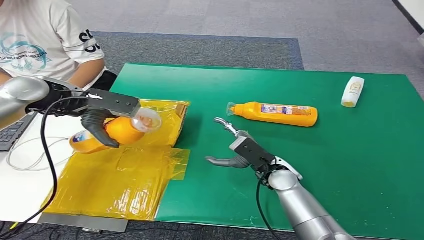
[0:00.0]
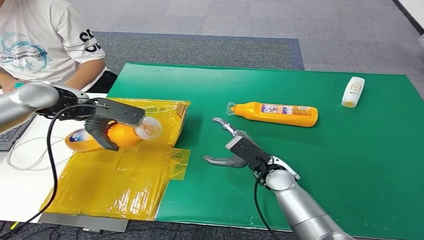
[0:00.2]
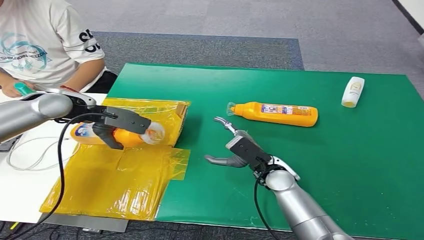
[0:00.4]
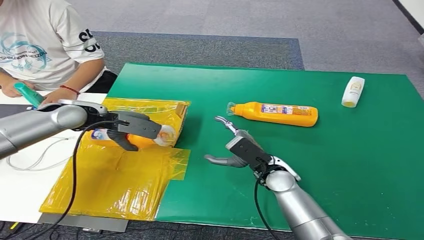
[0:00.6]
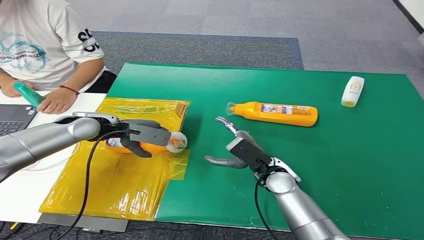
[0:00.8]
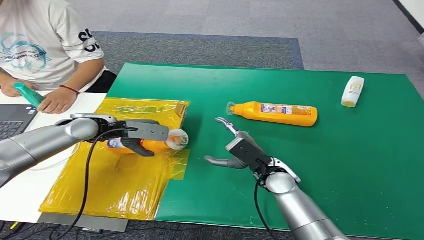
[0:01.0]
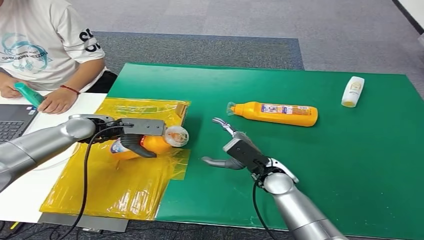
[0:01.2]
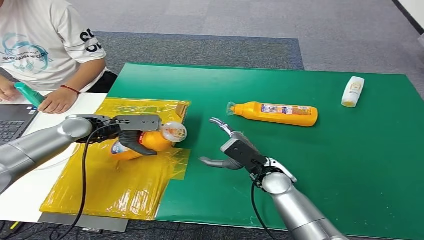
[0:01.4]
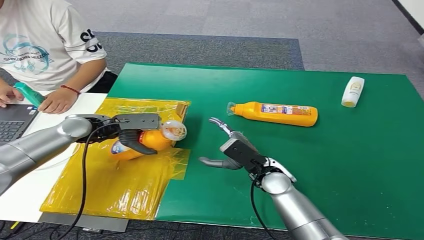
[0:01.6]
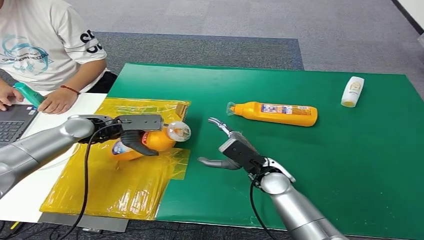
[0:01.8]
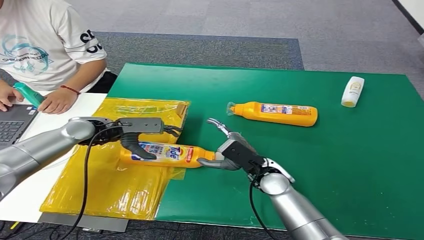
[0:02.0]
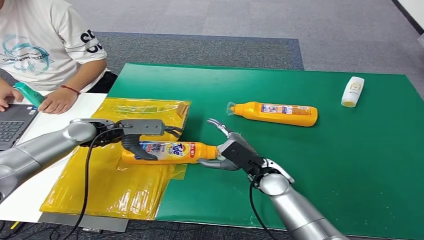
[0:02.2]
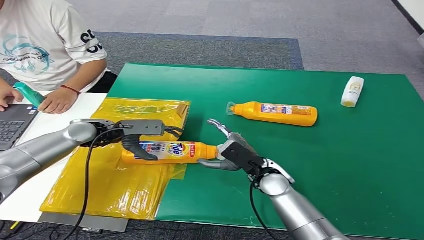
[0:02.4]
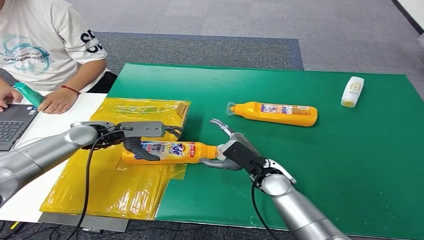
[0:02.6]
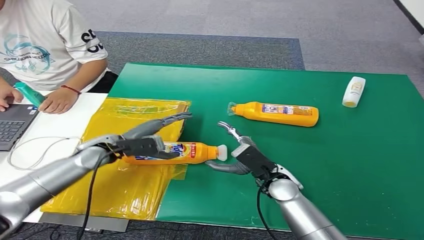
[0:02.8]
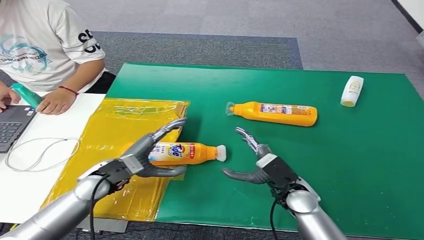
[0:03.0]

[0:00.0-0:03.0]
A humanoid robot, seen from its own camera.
Step, 0:00.0 to 0:03.0: Turn the bottle to the front side.
0:00.0 to 0:01.6: The left hand goes some 15 cm downward.

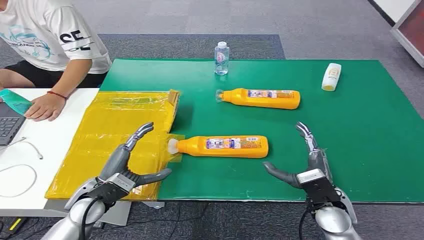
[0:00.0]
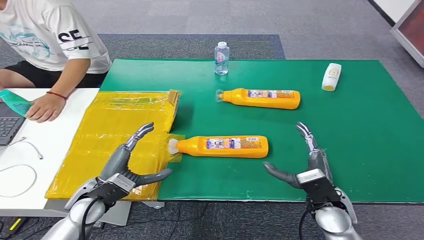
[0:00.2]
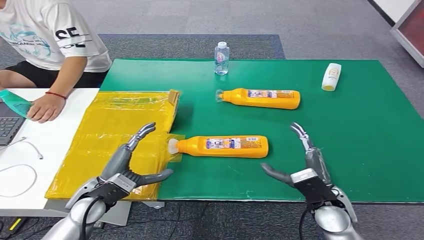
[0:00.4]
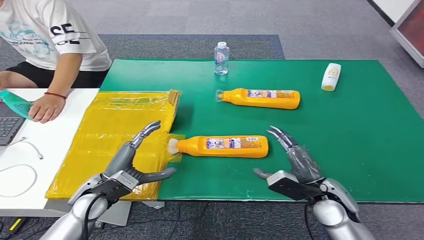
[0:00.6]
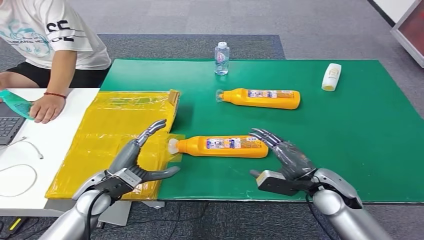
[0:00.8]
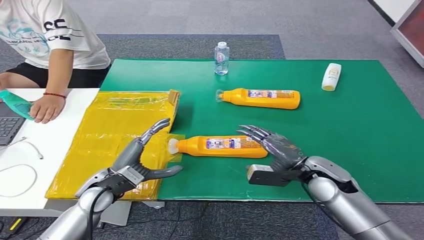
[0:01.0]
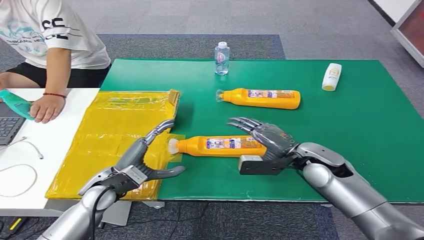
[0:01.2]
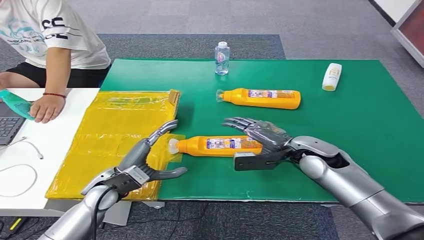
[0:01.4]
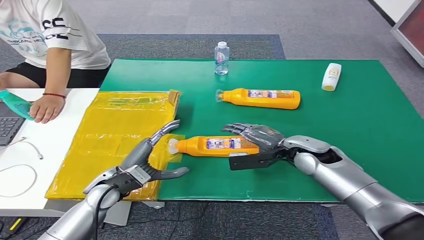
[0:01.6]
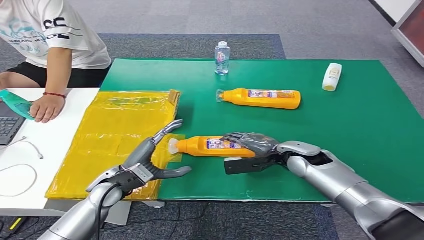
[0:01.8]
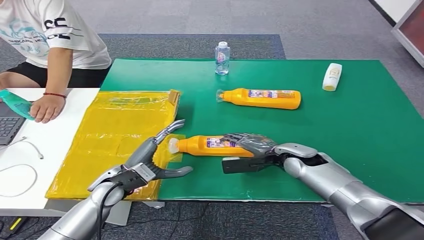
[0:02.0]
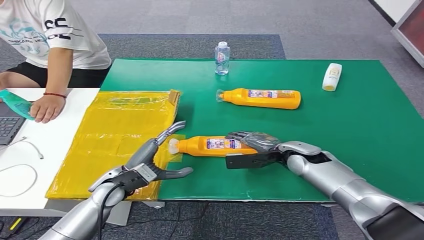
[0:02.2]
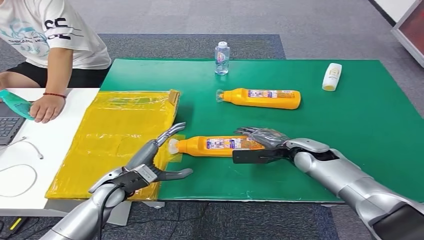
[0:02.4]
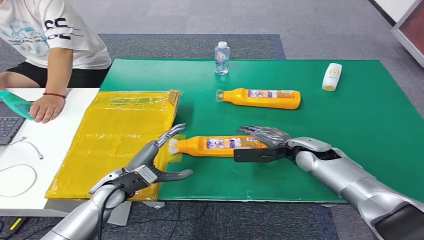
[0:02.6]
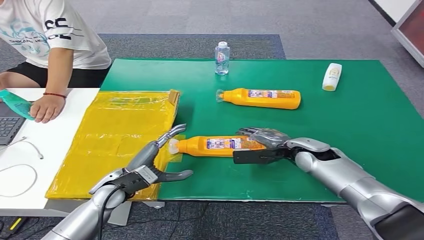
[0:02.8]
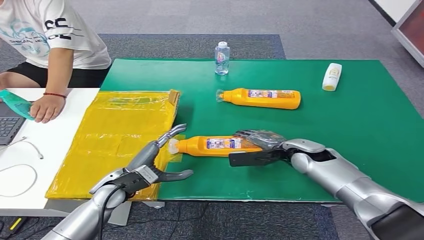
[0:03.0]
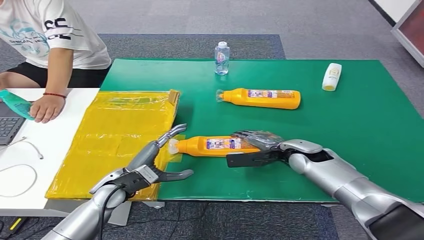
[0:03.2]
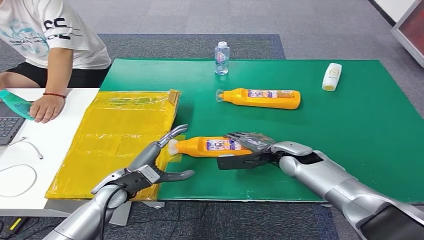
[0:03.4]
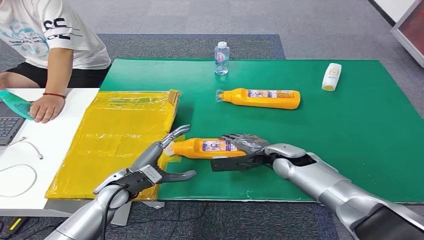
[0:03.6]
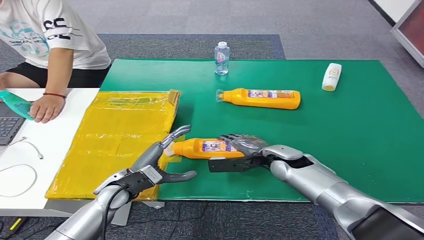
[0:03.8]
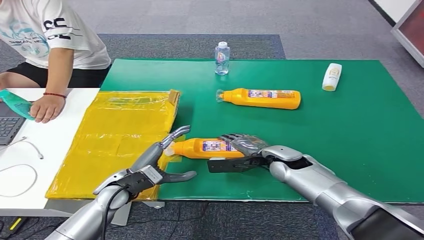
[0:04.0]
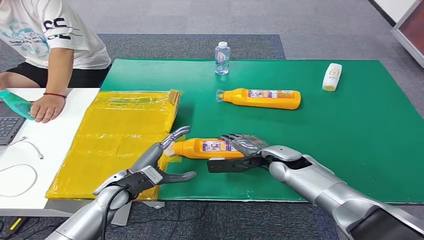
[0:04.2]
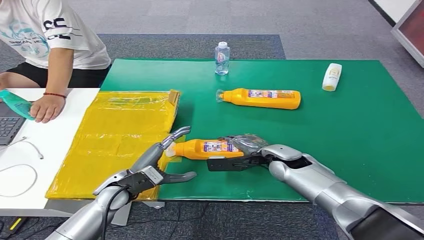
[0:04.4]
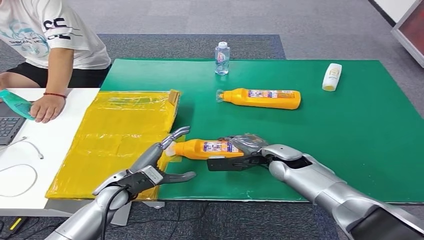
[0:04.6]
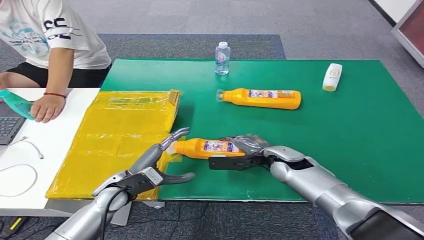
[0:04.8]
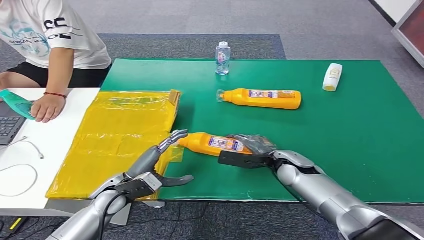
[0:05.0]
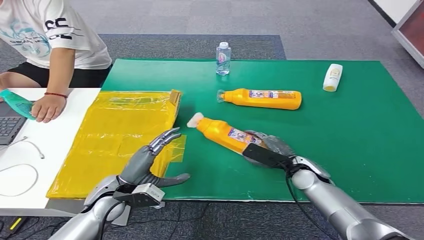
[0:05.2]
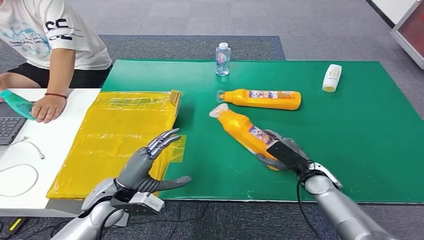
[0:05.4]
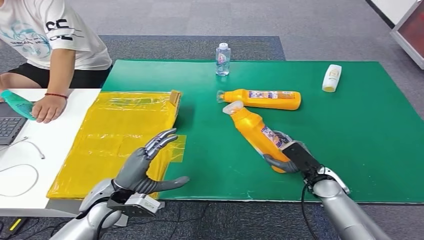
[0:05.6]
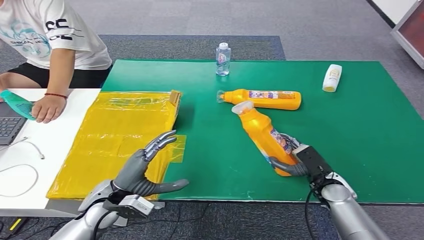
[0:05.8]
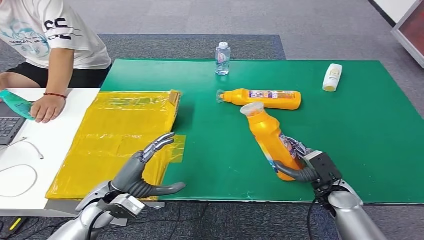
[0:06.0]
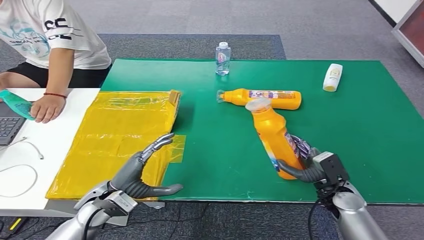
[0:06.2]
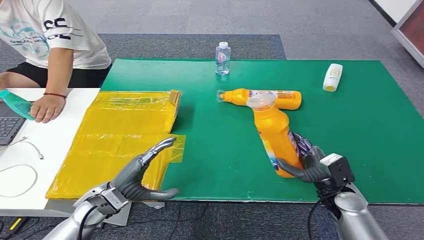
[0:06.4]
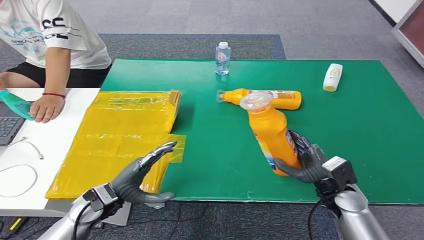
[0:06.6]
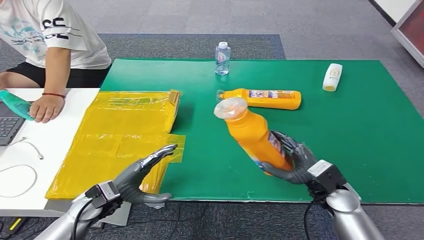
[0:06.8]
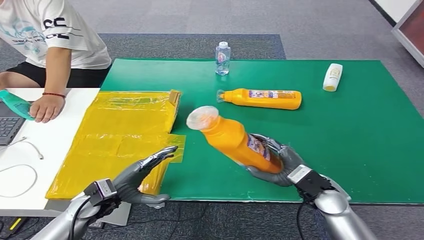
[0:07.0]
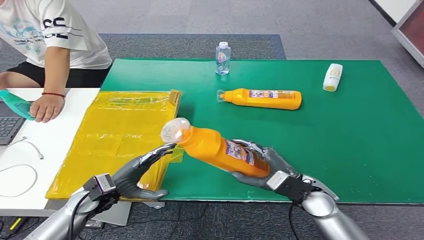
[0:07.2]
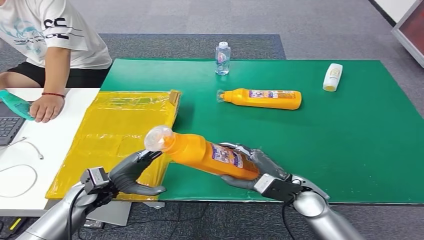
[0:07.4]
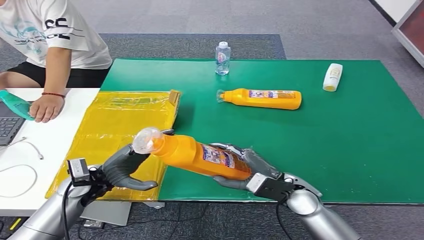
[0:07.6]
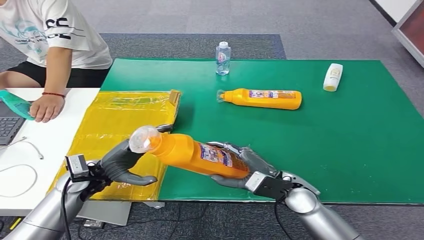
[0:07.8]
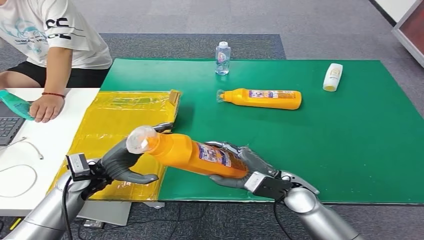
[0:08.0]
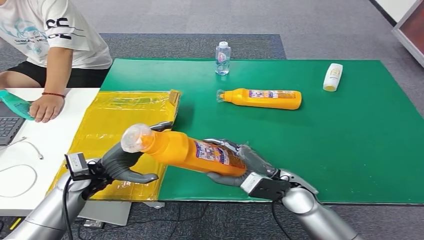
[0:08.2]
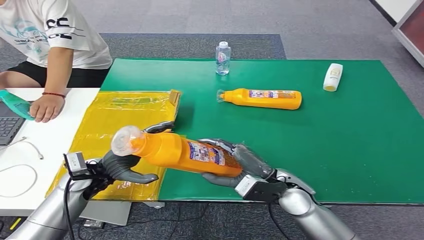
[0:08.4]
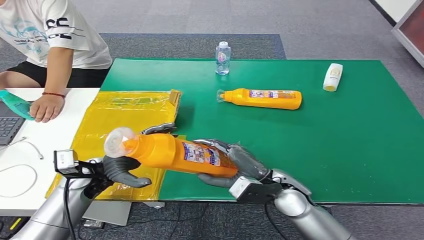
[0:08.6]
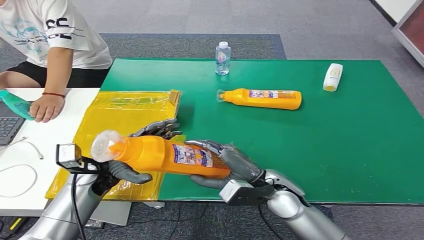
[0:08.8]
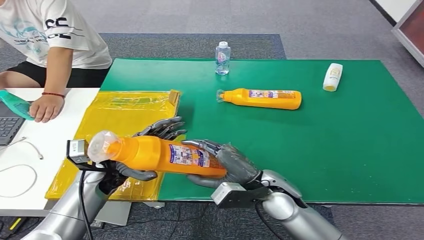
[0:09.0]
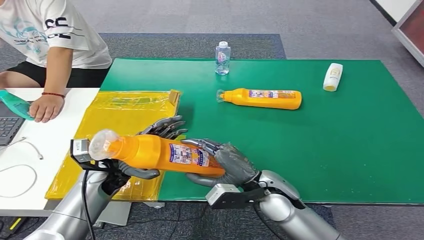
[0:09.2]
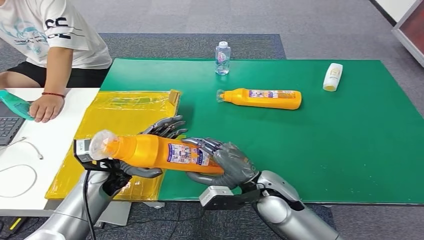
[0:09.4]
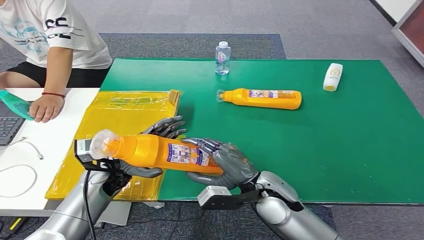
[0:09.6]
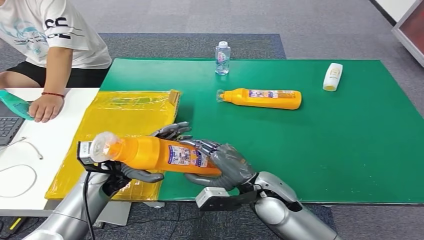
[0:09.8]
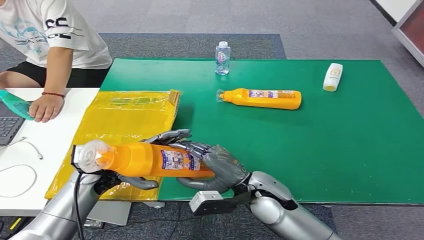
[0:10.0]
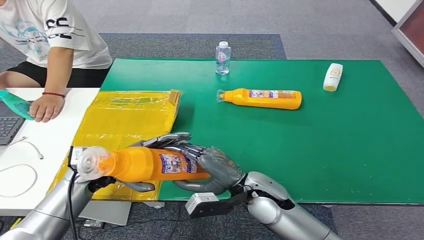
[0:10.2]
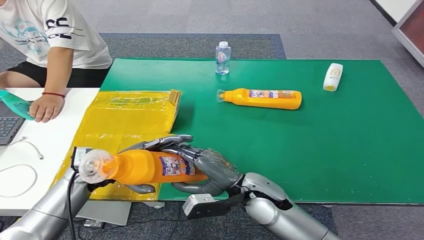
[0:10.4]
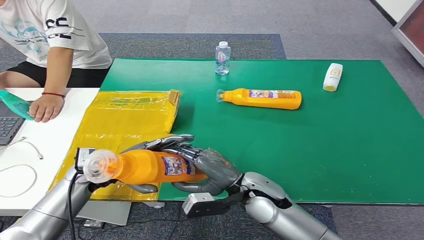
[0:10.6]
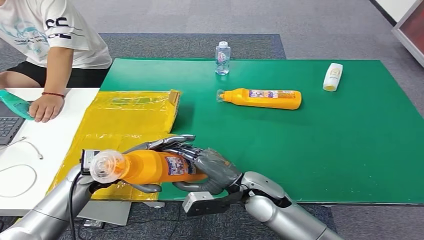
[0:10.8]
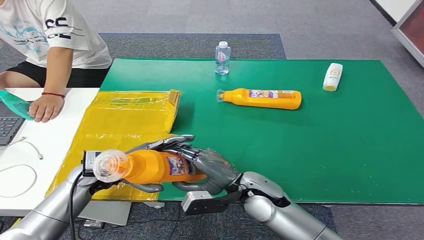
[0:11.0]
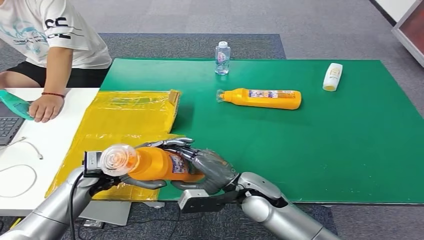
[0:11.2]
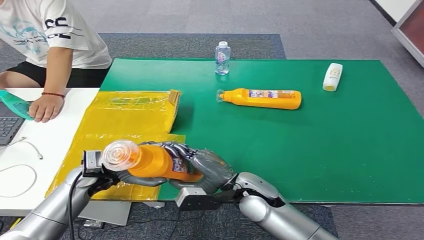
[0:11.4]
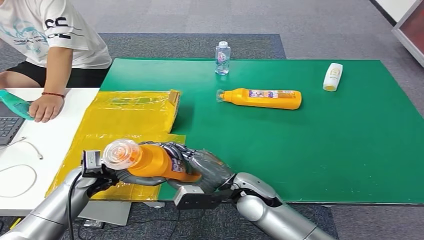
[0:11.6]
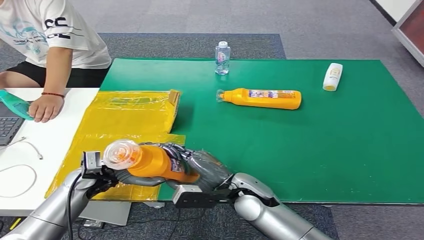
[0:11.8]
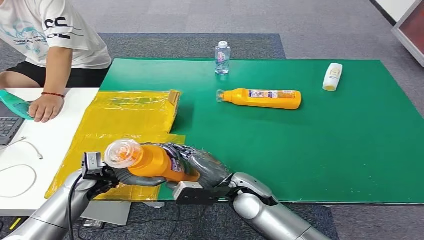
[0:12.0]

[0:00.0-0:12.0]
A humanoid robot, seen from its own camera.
Step, 0:00.0 to 0:08.0: Pick up the bottle from the table.
0:01.6 to 0:03.0: The hands stay close to where they were, moving slightly.
0:03.0 to 0:04.4: The right hand is displaced to the left by about 5 cm.
0:04.4 to 0:06.0: The right hand travels to the right, backward and downward by some 15 cm.
0:06.0 to 0:07.6: The left hand ends up roughly 5 cm from where it was. Meanwhile the right hand moves to the left and upward, roughly 15 cm.
0:07.6 to 0:09.0: The right hand moves to the left, some 5 cm.
0:09.0 to 0:12.0: The hands make only small movements.

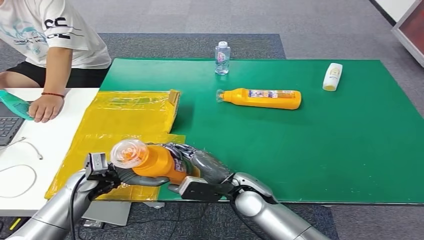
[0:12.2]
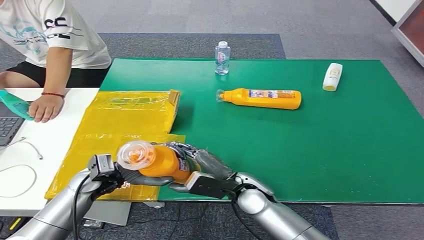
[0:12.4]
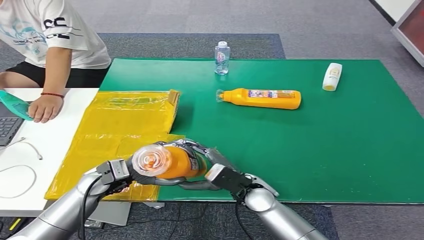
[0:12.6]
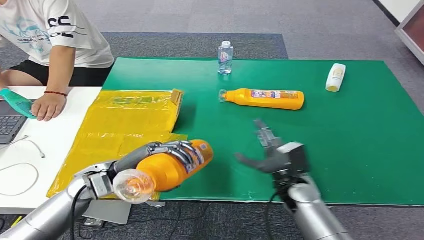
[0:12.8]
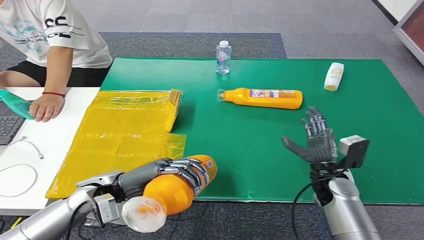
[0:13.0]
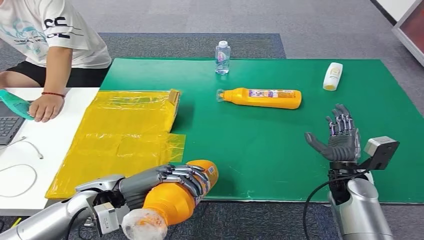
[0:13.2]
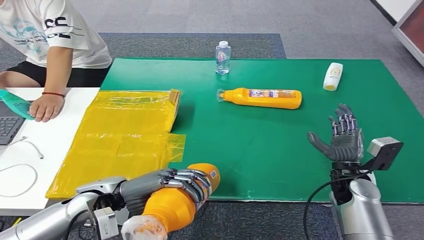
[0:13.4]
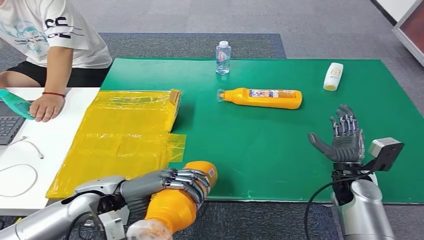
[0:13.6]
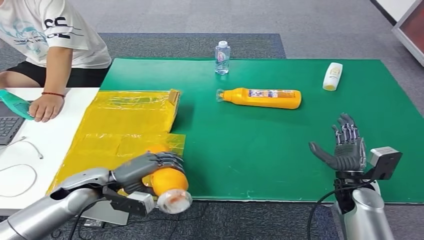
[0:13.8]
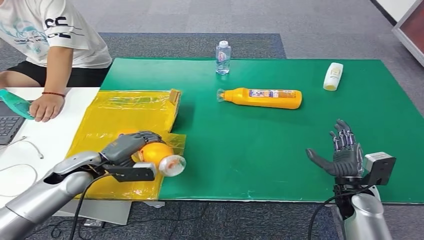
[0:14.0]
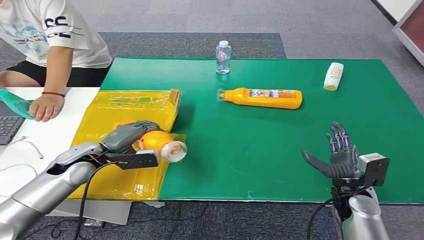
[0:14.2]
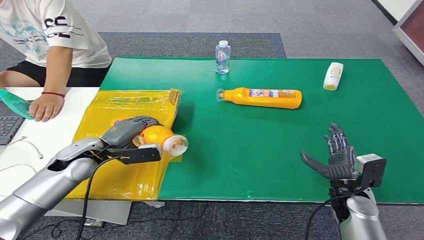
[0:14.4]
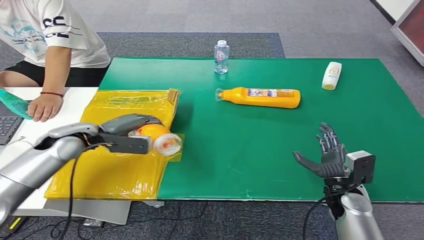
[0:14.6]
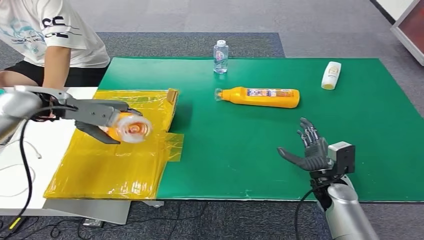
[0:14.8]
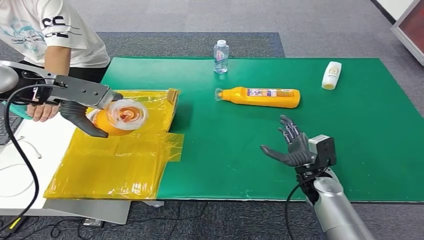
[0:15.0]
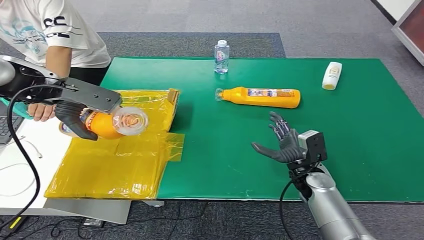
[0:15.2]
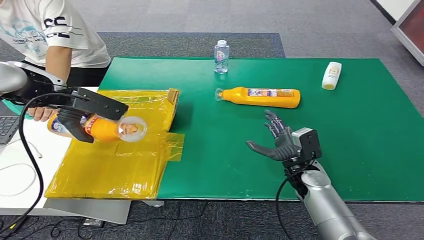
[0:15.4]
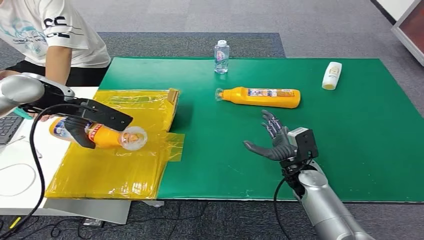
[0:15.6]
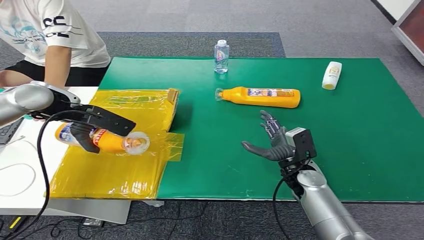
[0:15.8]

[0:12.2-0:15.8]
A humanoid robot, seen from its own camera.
0:12.2 to 0:14.0: The right hand is displaced to the right by about 20 cm.
